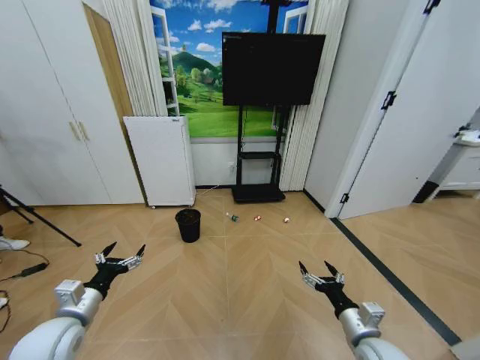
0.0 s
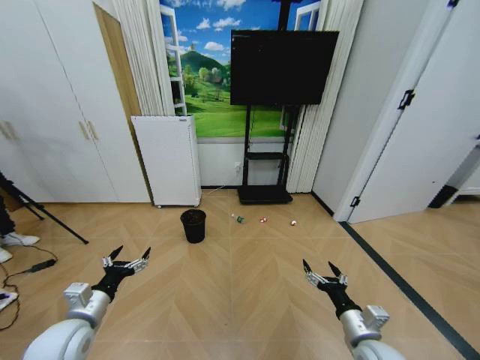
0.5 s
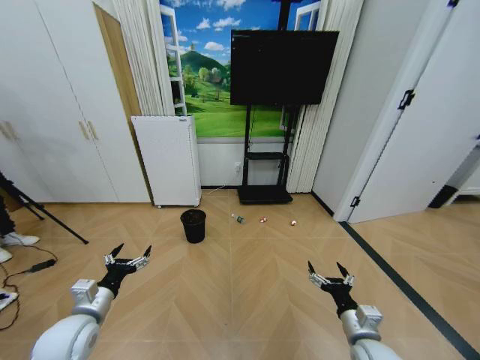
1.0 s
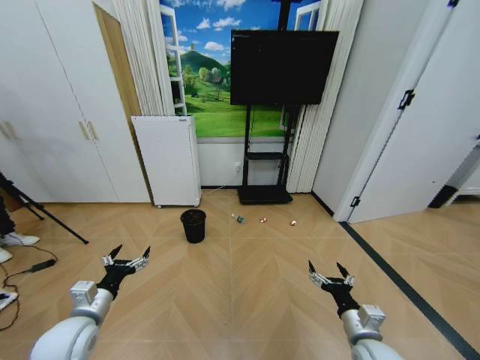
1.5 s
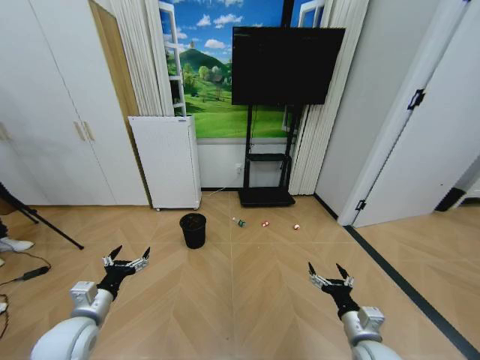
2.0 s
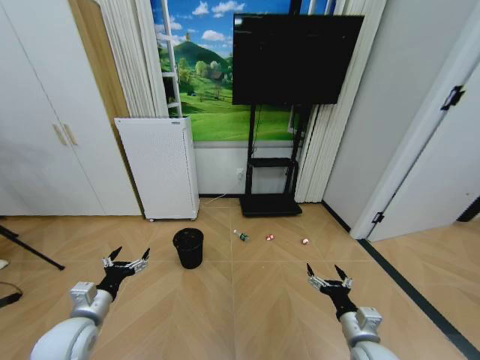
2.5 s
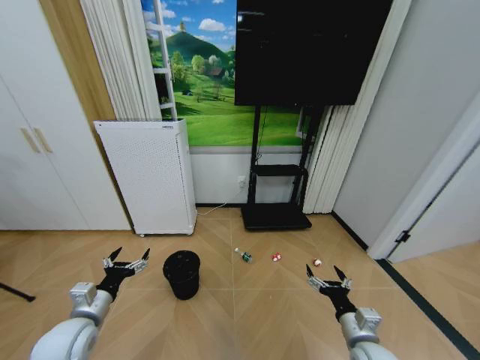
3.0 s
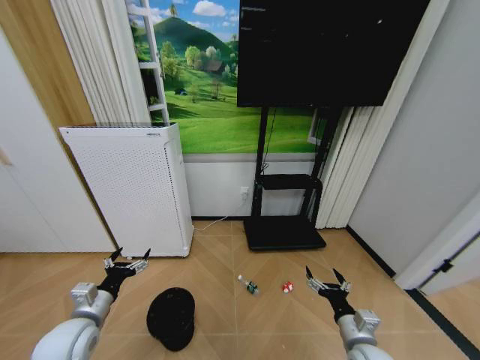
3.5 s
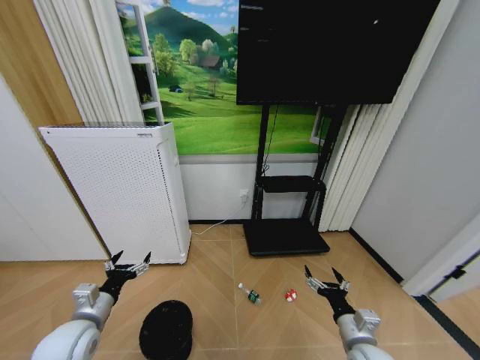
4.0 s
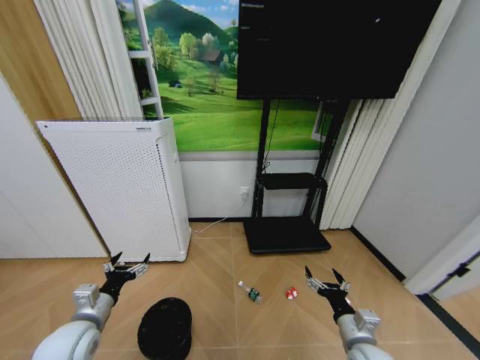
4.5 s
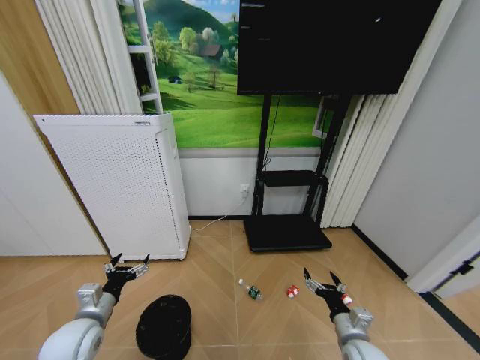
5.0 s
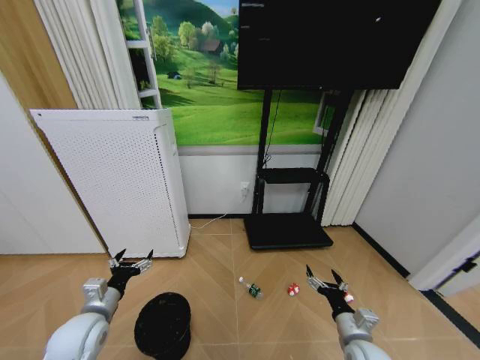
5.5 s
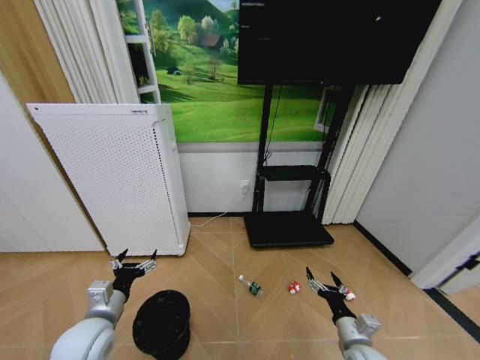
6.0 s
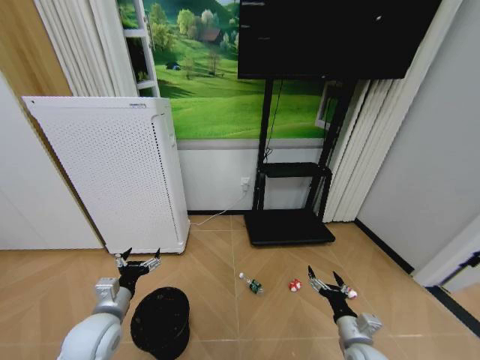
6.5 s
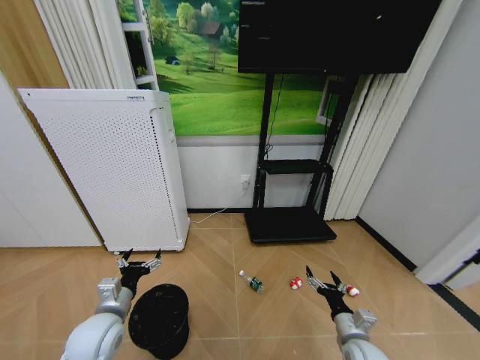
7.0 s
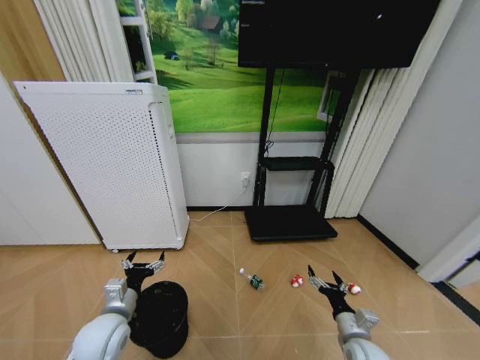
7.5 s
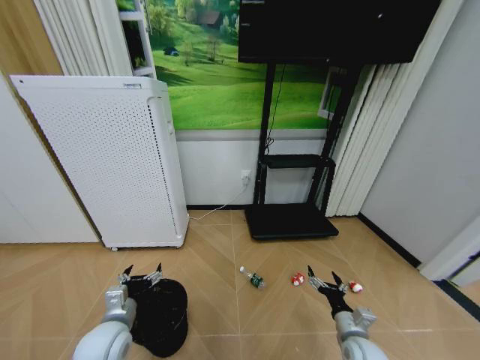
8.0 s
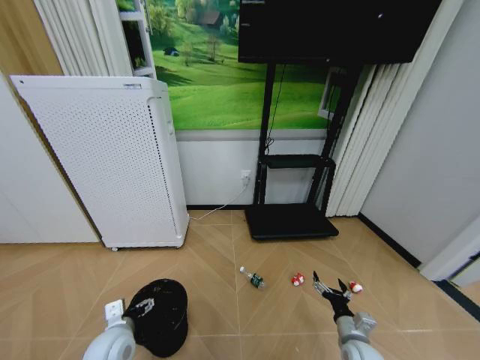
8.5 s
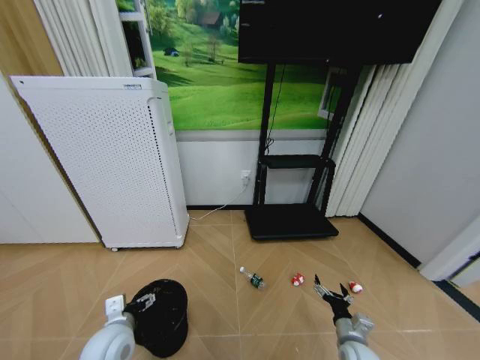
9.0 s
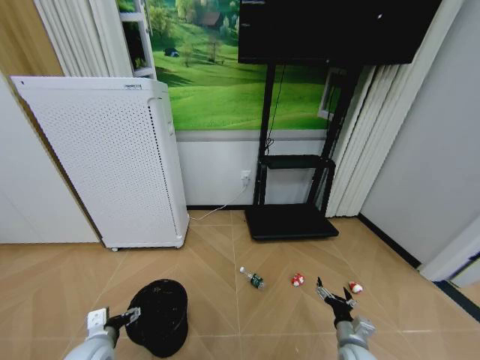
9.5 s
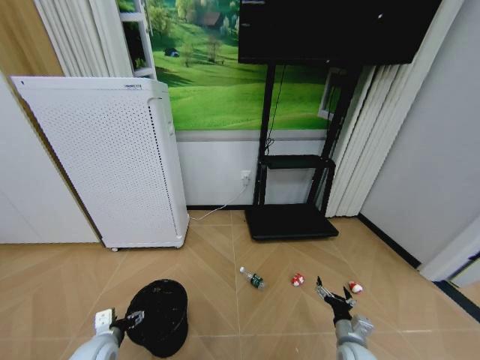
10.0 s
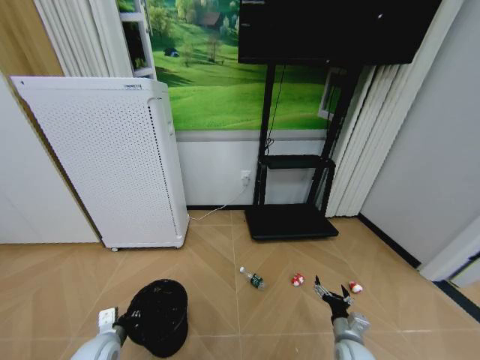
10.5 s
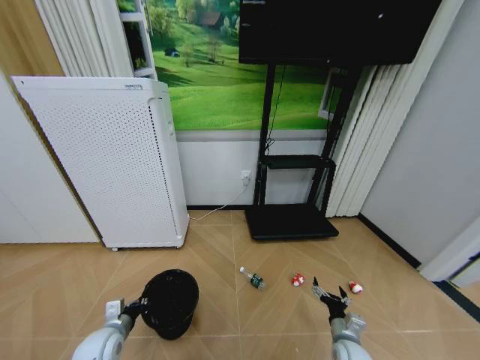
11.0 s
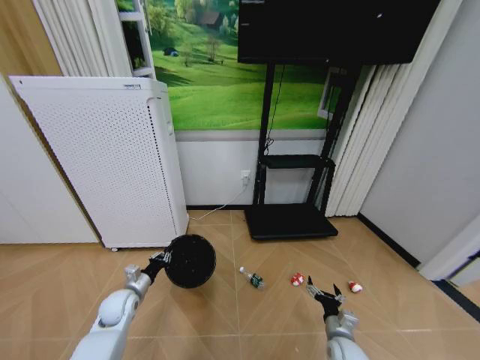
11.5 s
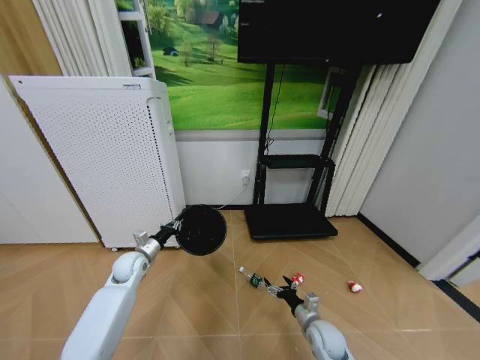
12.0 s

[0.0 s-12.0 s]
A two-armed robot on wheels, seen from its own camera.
Task of the whole recording: Pick up the trash bin and place the garbage on the floor into it.
4.0 to 6.0 s: The right gripper shifts by some 5 cm.
8.0 to 10.0 s: The left gripper is displaced downward and to the left by roughly 10 cm.
10.0 to 12.0 s: The right gripper is displaced to the left and forward by approximately 10 cm. Meanwhile the left gripper moves forward, some 20 cm, and closes.

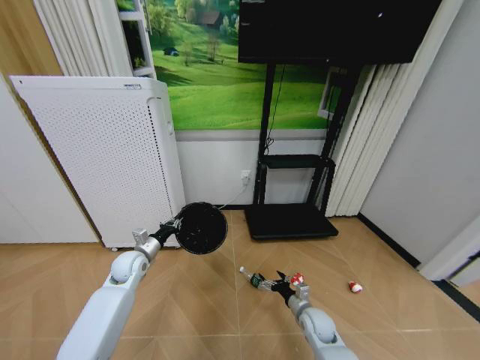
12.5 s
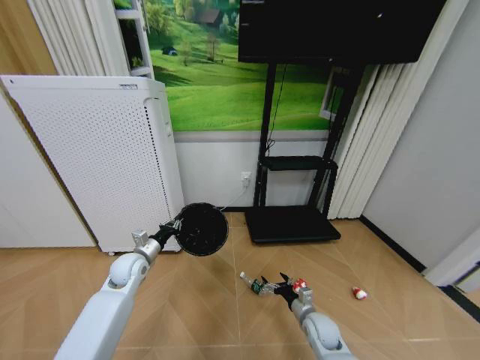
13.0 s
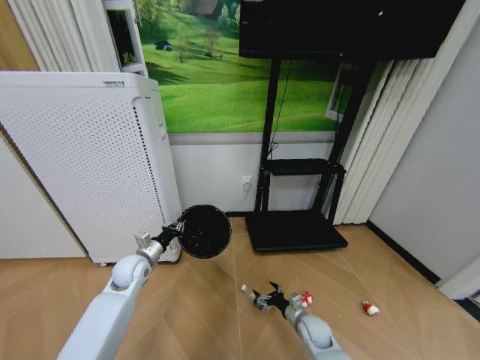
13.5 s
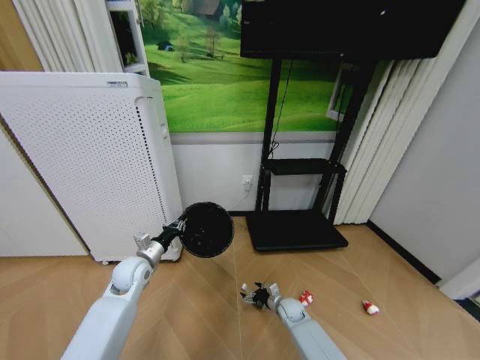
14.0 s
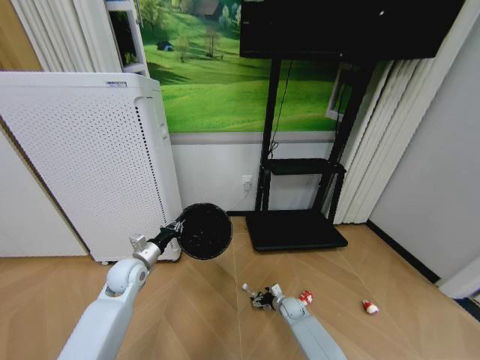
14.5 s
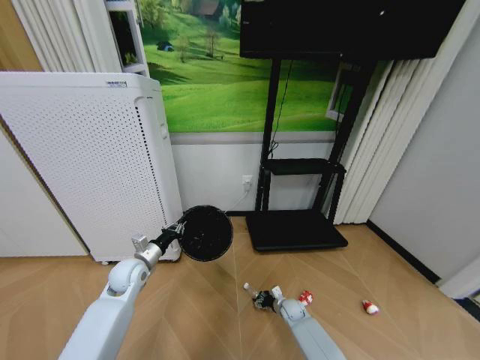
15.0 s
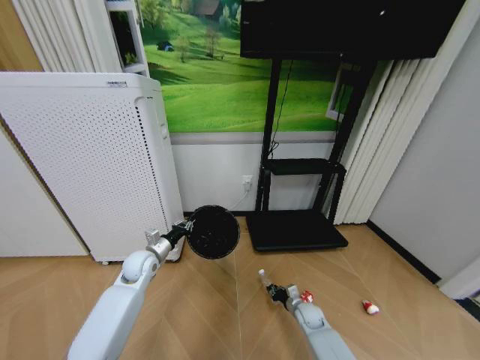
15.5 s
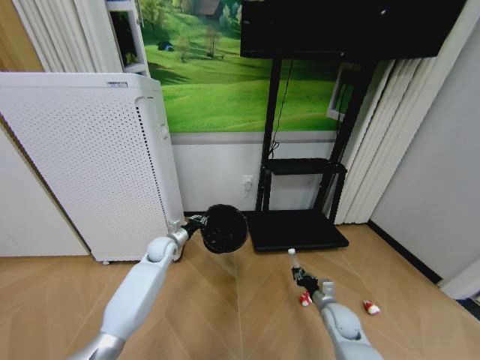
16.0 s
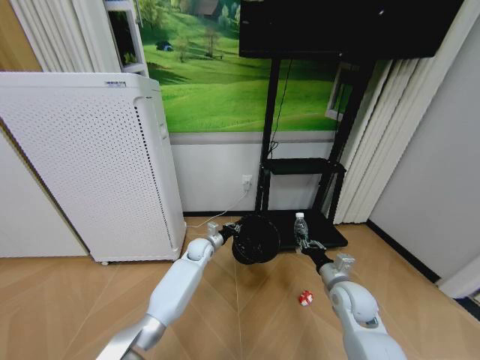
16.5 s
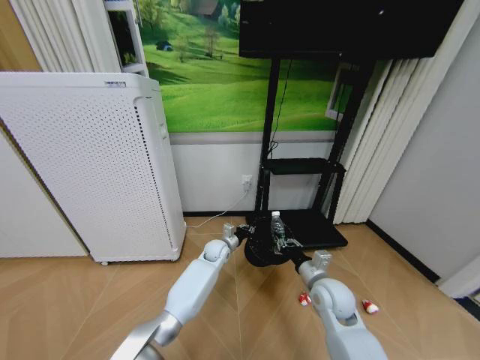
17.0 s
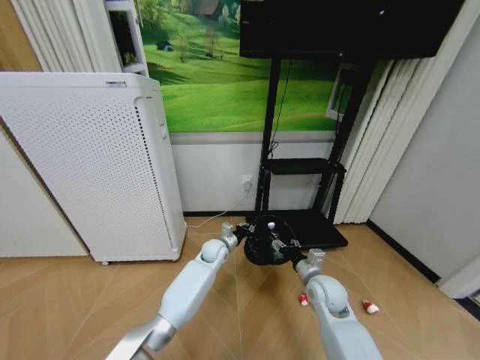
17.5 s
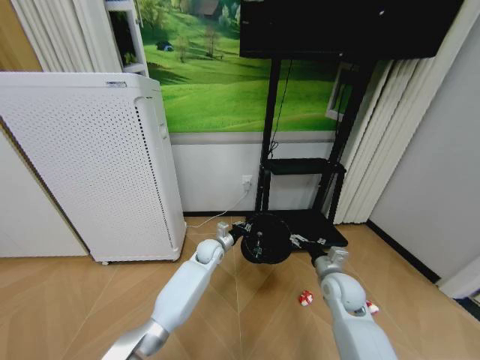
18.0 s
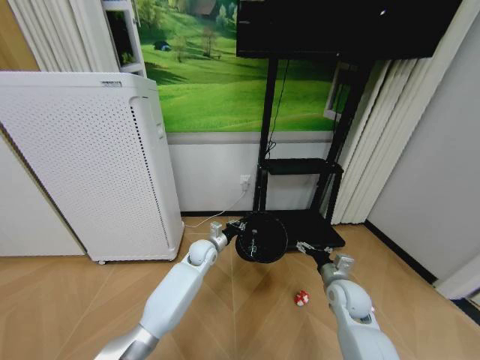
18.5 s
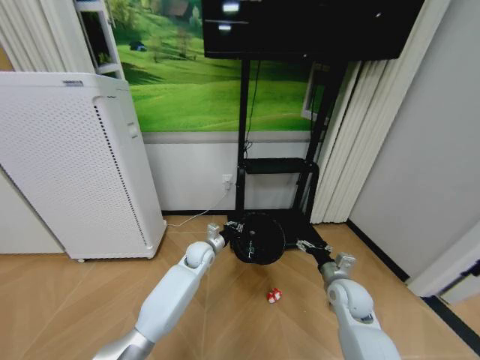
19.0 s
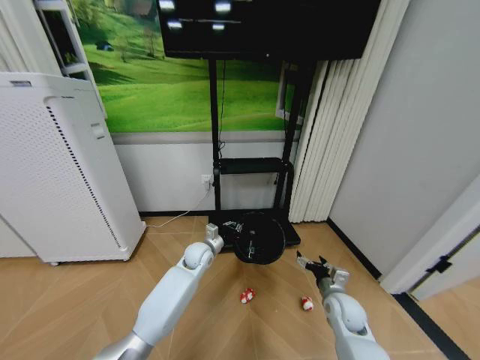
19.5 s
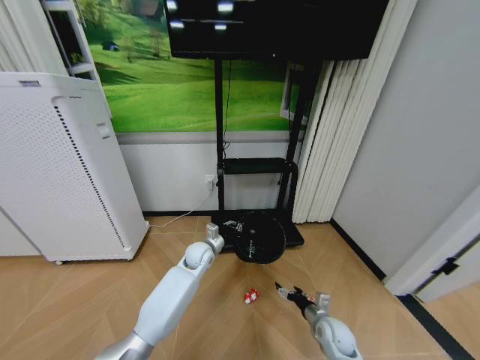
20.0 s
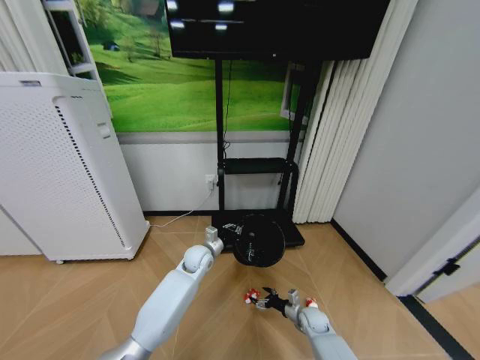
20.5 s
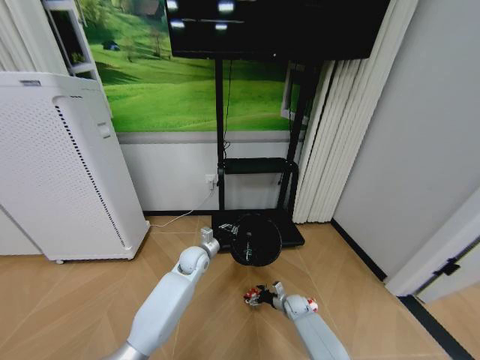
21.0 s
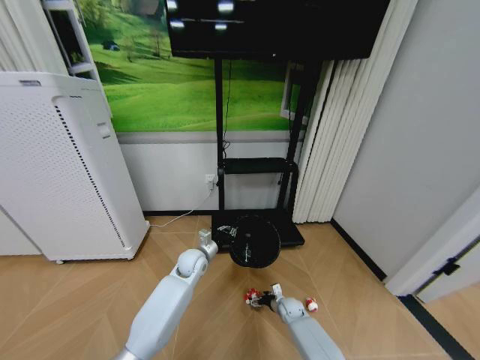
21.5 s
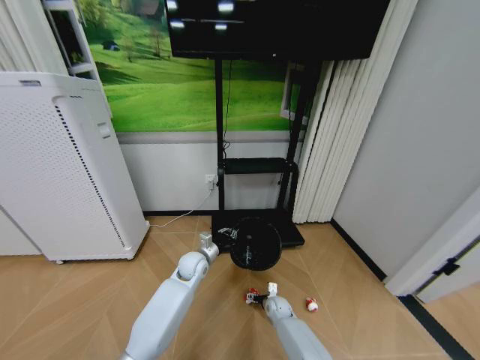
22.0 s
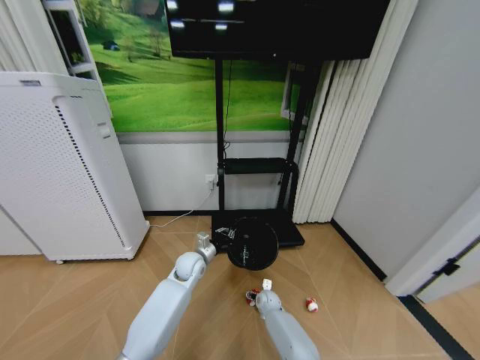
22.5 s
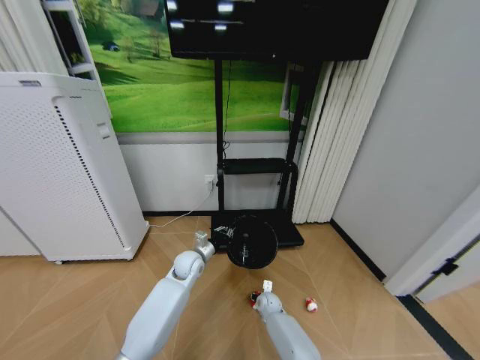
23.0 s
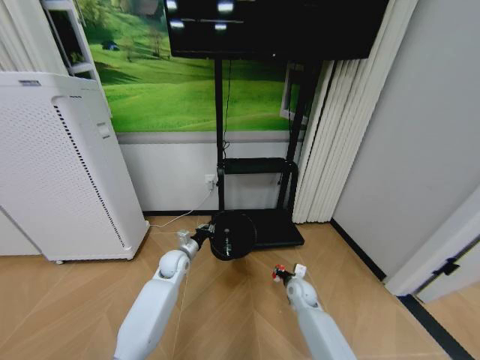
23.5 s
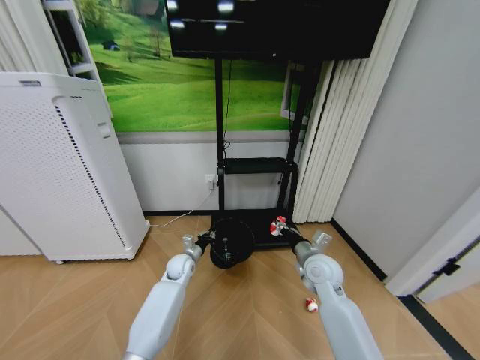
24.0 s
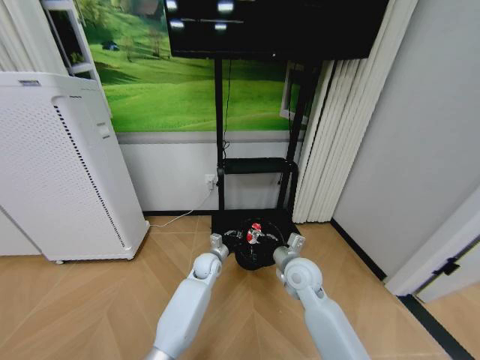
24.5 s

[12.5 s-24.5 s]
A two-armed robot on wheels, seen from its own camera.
Task of the whole recording: Pick up the trash bin and place the garbage on the floor into it.
12.5 to 14.5 s: The right gripper shifts about 15 cm downward and forward.
14.5 to 16.5 s: The left gripper shifts roughly 25 cm to the right and forward. Meanwhile the right gripper goes about 25 cm upward, and closes up.
16.5 to 18.5 s: The right gripper opens; the left gripper moves approximately 5 cm.
18.5 to 20.5 s: The right gripper is displaced downward by approximately 25 cm.
20.5 to 22.5 s: The right gripper goes about 15 cm to the left and forward.
22.5 to 24.5 s: The left gripper goes roughly 5 cm to the right. The right gripper travels upward by about 30 cm, and closes.

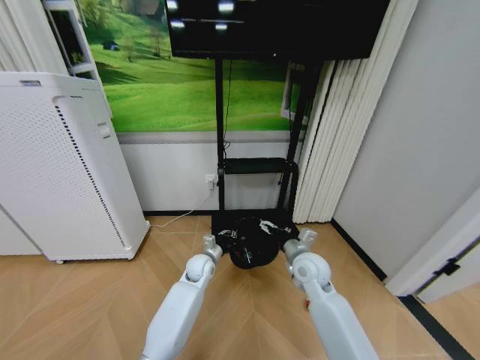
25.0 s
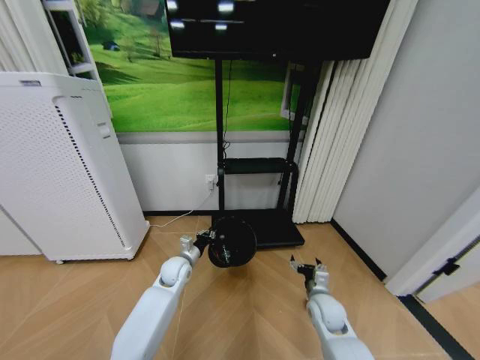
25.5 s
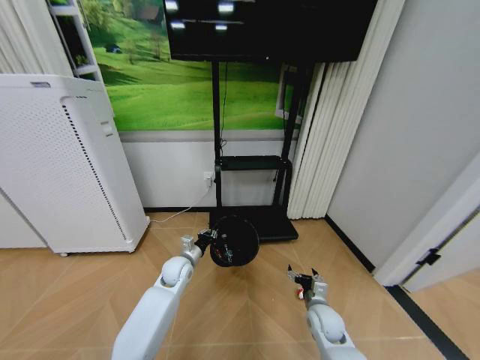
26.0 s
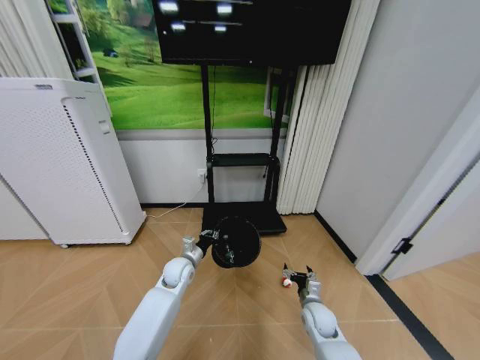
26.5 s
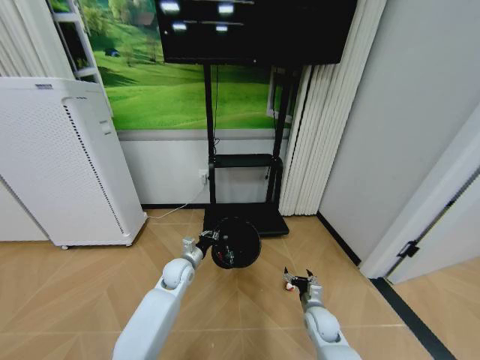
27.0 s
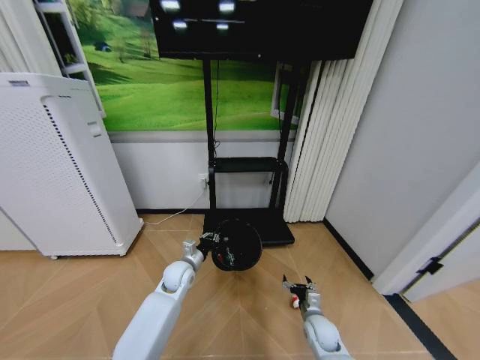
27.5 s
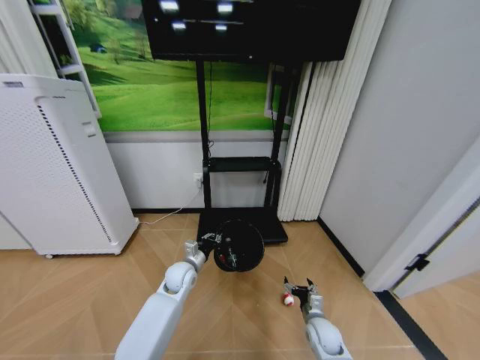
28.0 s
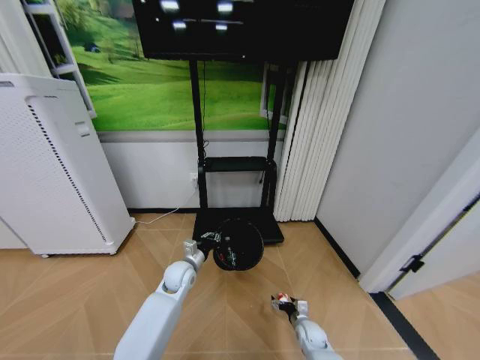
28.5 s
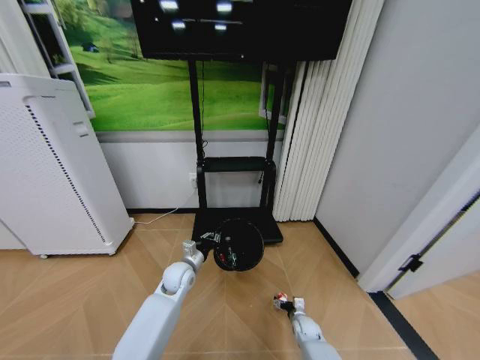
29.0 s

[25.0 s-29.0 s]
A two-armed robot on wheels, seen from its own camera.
Task of the whole recording: Pick up the trash bin and place the garbage on the floor into it.
25.0 to 27.0 s: The left gripper travels to the left by some 5 cm, while the right gripper goes approximately 20 cm downward.
27.0 to 29.0 s: The right gripper heads downward, covering about 15 cm.
